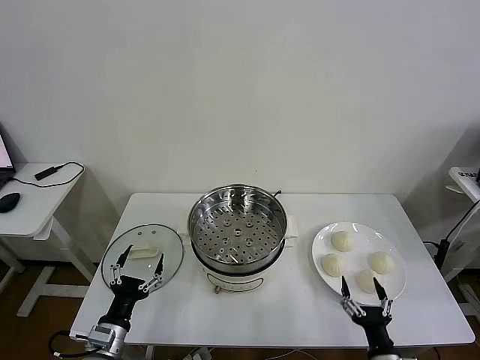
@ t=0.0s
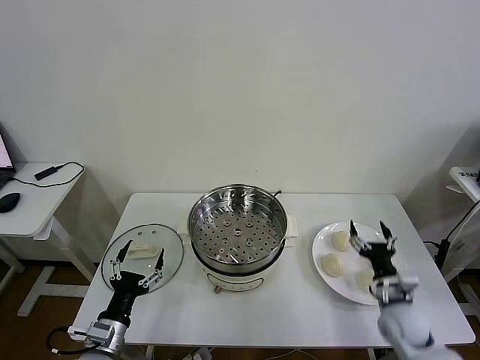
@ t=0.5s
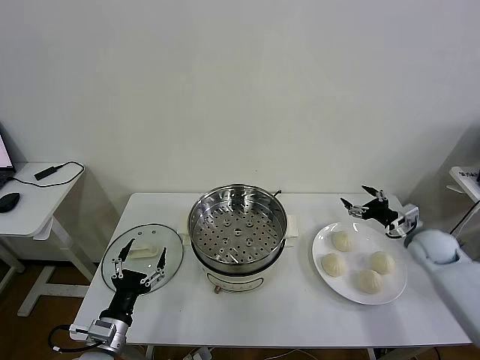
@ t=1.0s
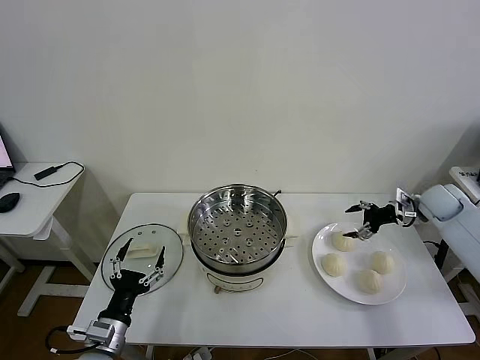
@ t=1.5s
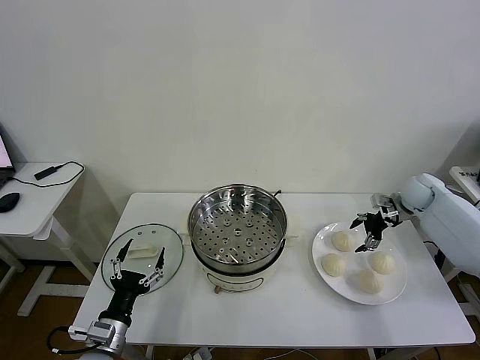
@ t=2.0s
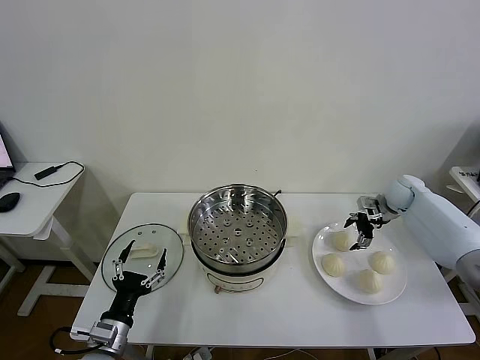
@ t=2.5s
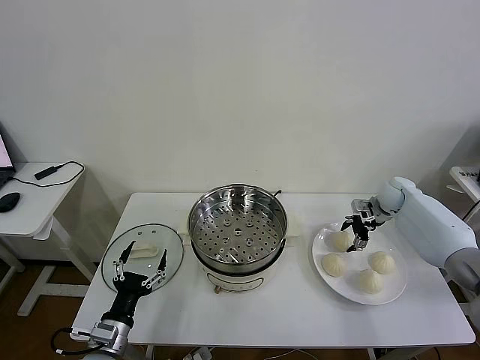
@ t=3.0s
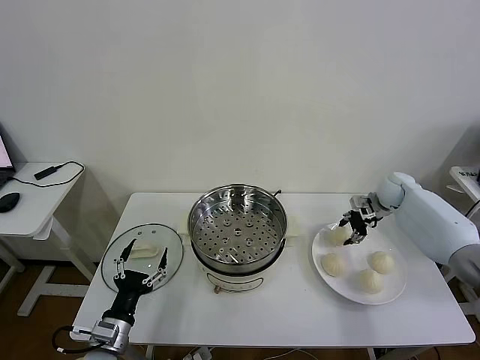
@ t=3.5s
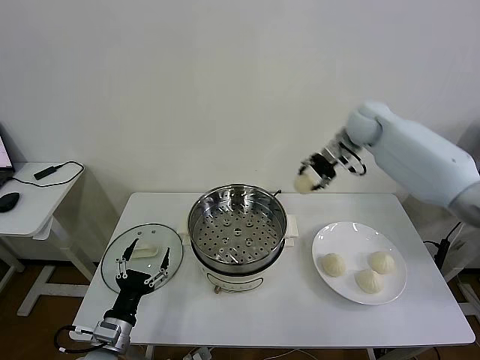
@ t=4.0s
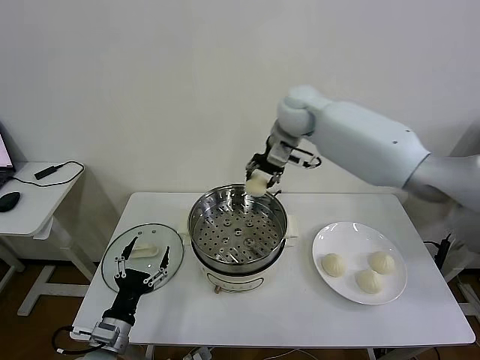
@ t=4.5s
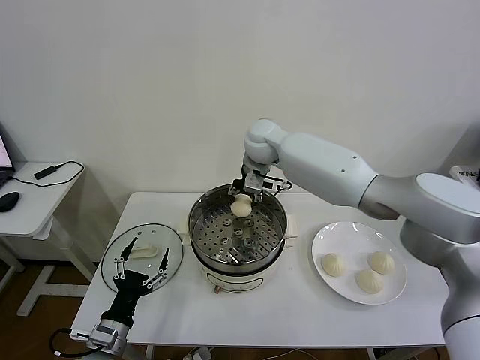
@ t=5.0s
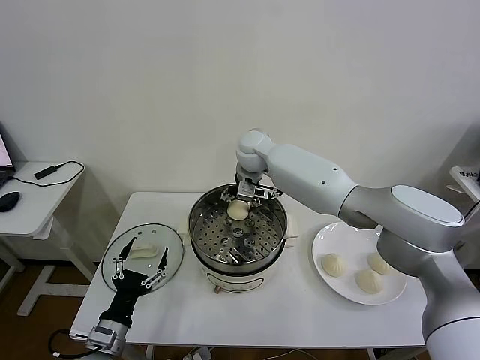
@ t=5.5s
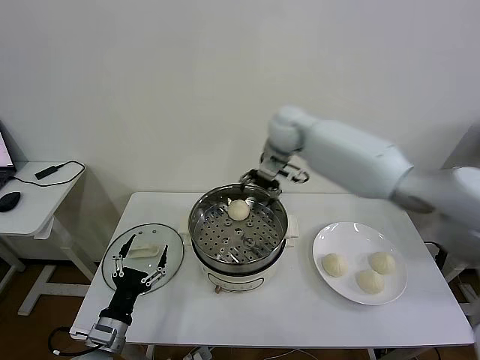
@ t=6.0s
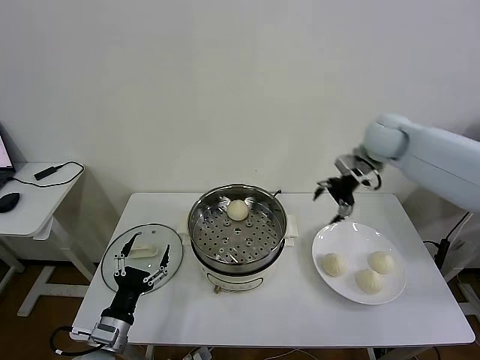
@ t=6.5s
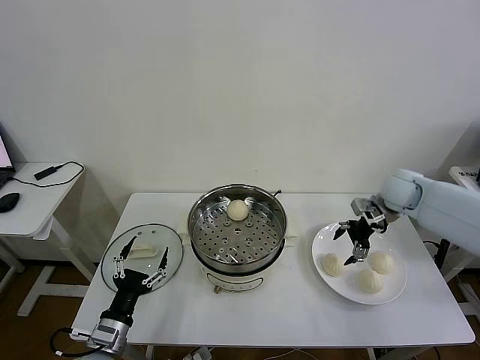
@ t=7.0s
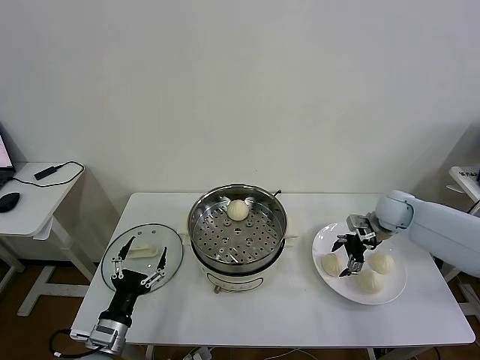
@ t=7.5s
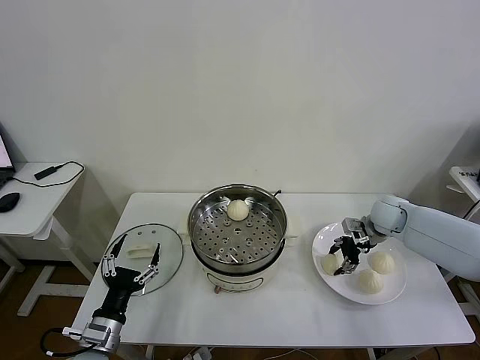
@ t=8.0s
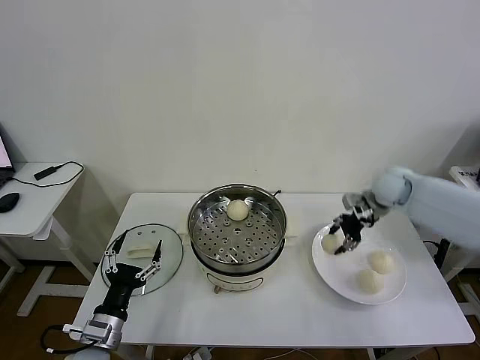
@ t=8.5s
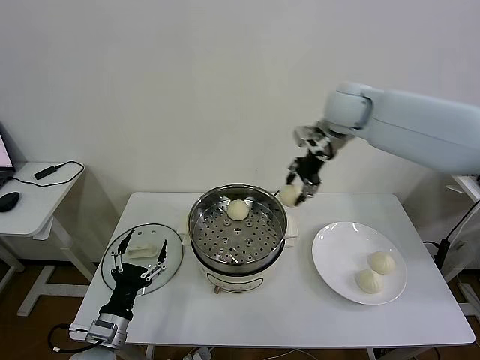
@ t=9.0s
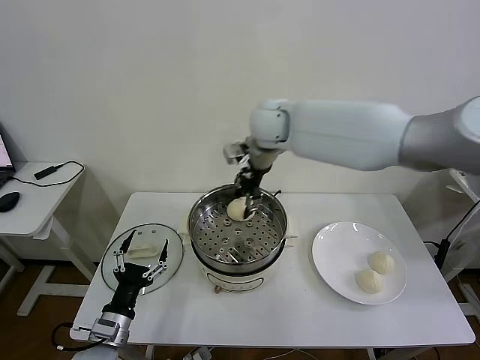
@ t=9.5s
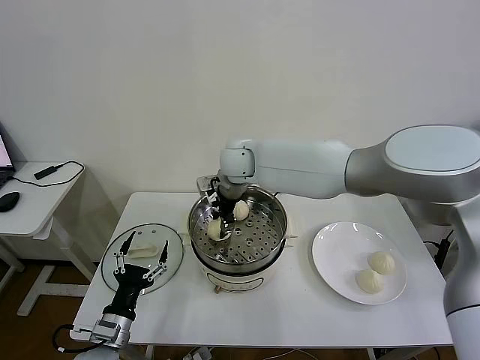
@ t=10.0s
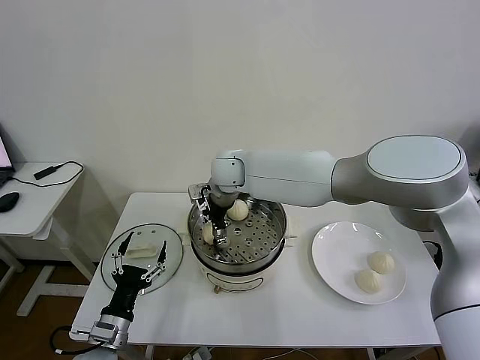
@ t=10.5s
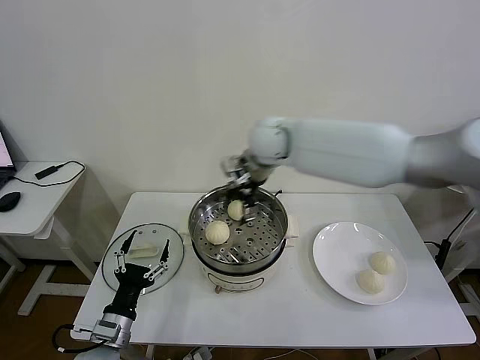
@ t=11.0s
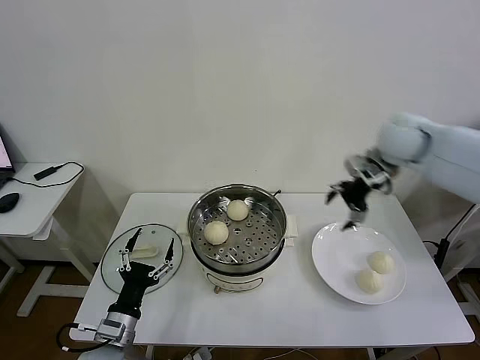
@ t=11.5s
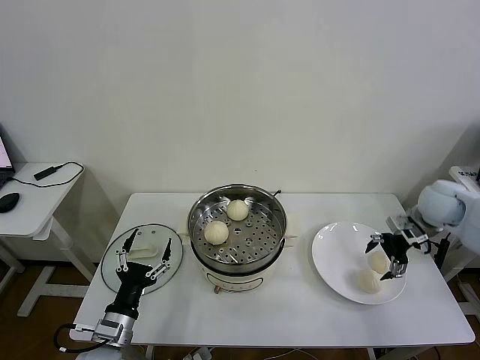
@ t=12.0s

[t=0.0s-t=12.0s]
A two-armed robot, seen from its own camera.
Task of the whole recording: take steamed baozi put them in steamer then cover it.
Step, t=0.0s to t=3.0s: Grasp the baozi in the plate with right gripper.
Step, t=3.5s to t=5.5s: Place the baozi on the steamer with right gripper.
Step, t=6.0s to t=8.0s: Grasp the baozi in the plate with right gripper.
Step, t=8.5s to t=10.5s: Place the baozi on the steamer with right gripper.
t=2.0s to t=4.0s: The right gripper shifts some 30 cm to the left and upward, and closes.
t=4.0s to t=6.0s: The right gripper moves to the left, about 10 cm, and opens its fingers.
t=6.0s to t=8.0s: The right gripper goes approximately 30 cm to the right and downward, and closes its fingers.
t=8.0s to t=10.0s: The right gripper moves to the left, about 40 cm.
t=10.0s to t=12.0s: The right gripper shifts roughly 50 cm to the right, and opens its fingers.

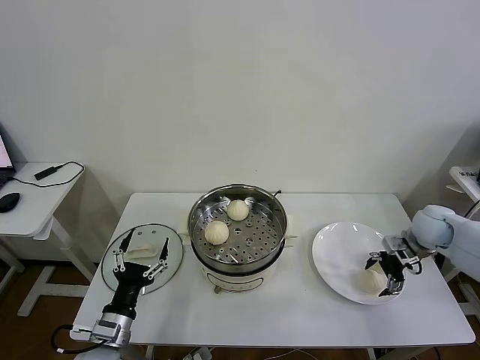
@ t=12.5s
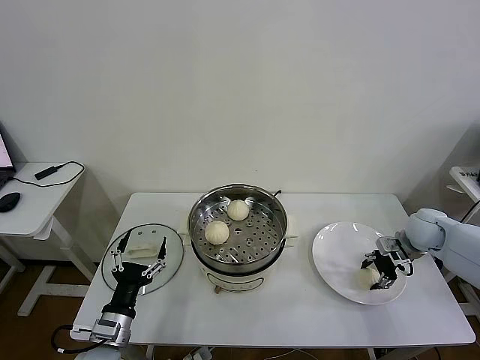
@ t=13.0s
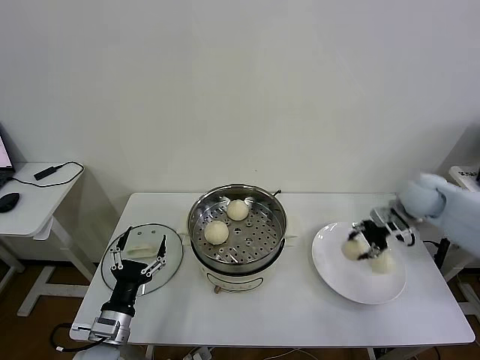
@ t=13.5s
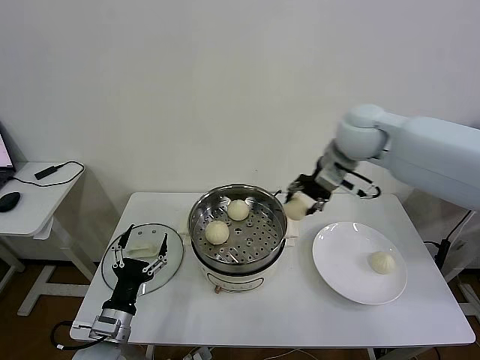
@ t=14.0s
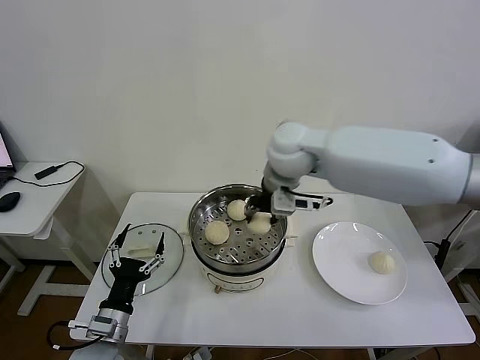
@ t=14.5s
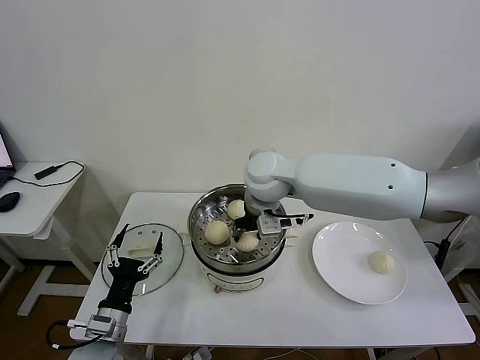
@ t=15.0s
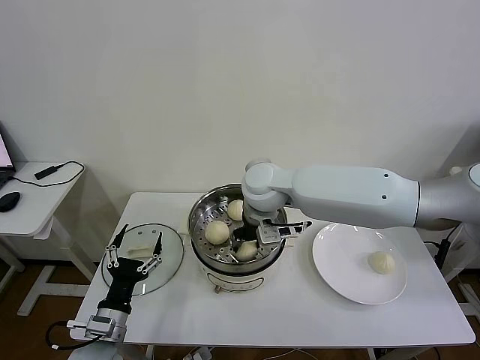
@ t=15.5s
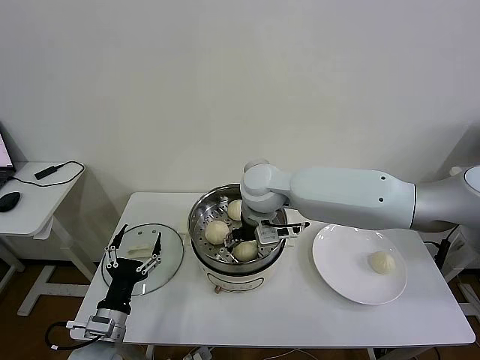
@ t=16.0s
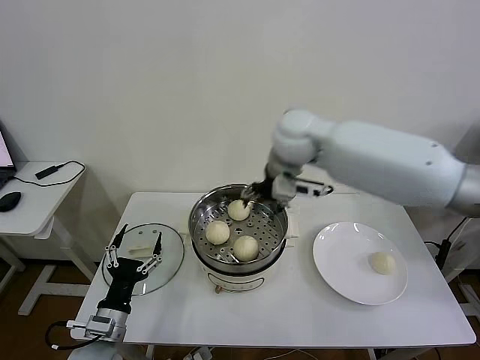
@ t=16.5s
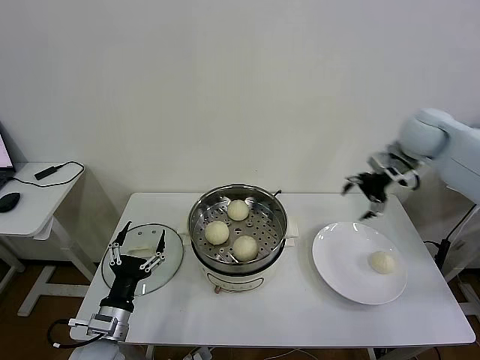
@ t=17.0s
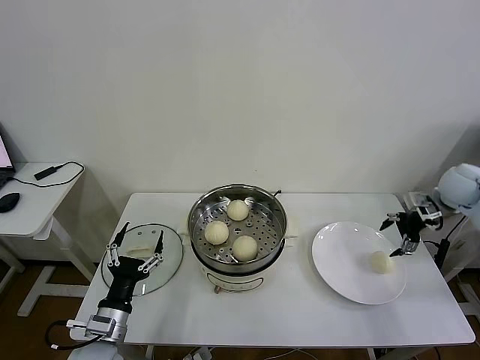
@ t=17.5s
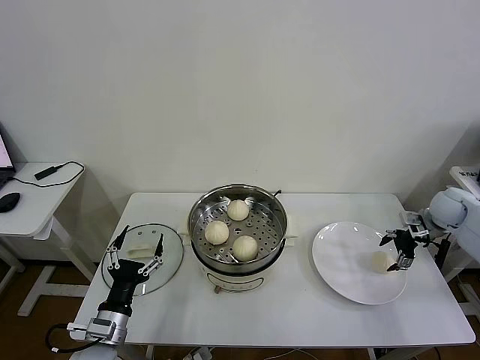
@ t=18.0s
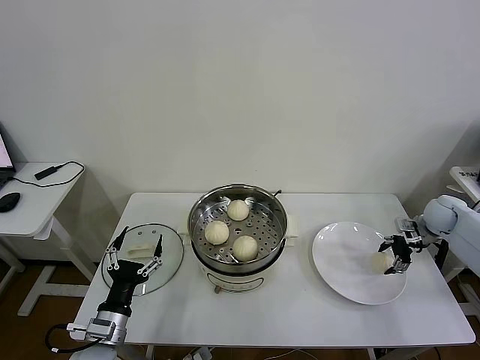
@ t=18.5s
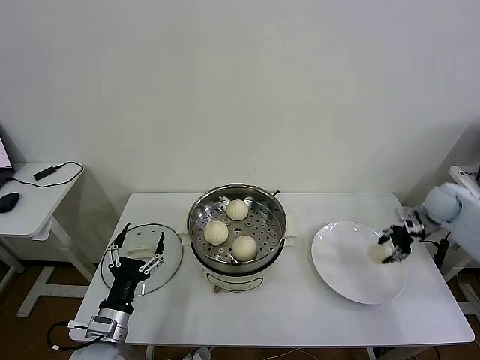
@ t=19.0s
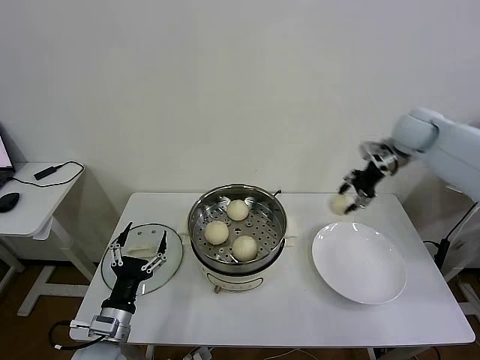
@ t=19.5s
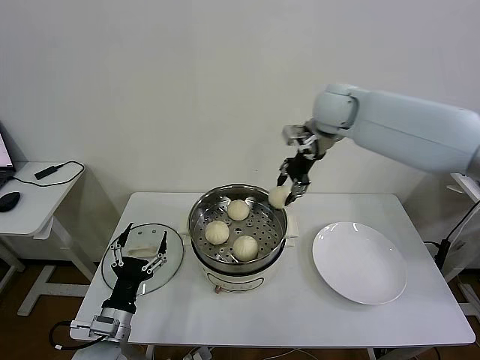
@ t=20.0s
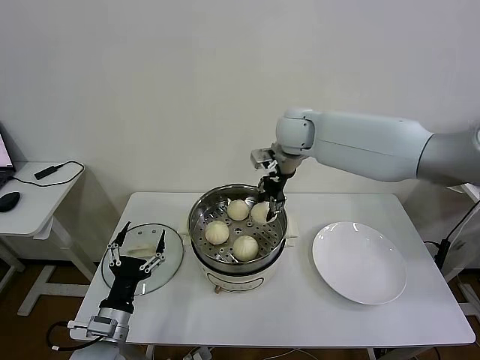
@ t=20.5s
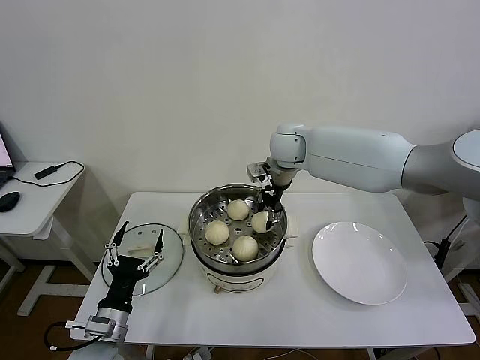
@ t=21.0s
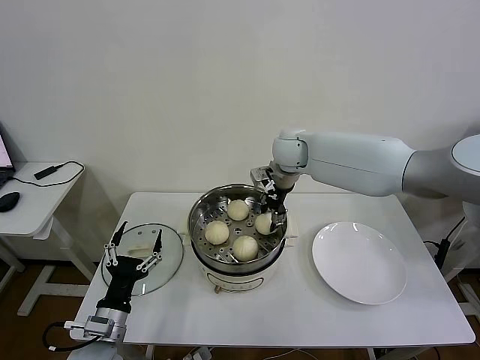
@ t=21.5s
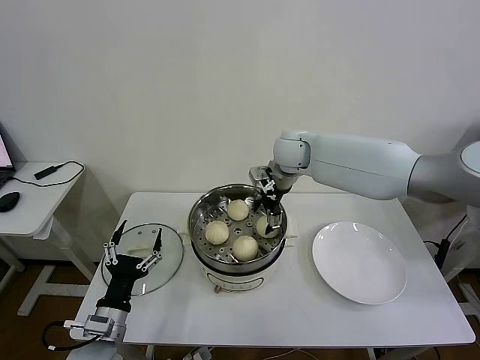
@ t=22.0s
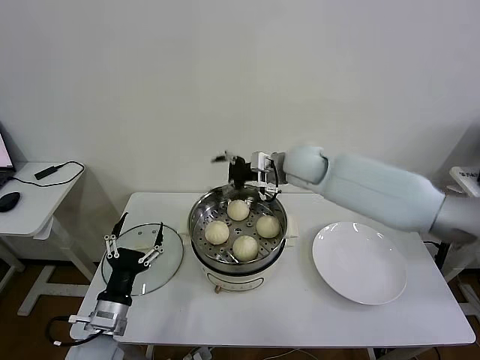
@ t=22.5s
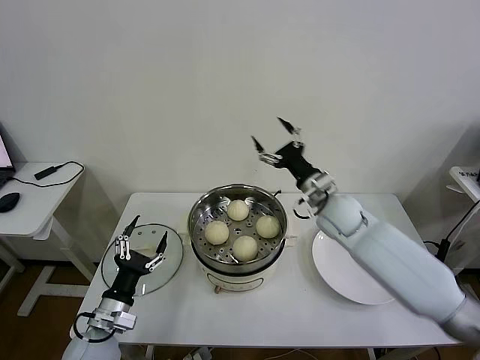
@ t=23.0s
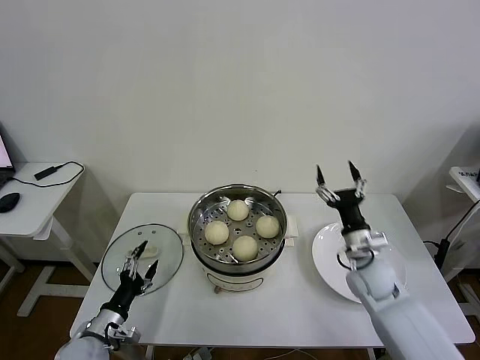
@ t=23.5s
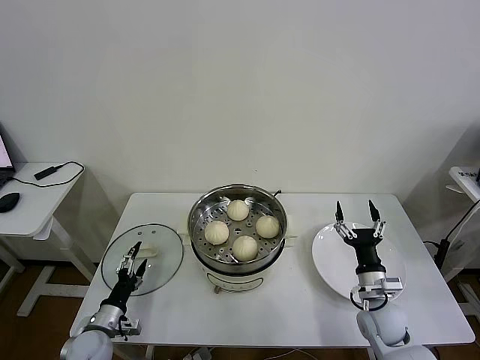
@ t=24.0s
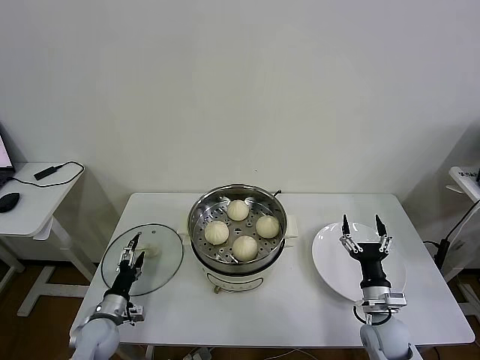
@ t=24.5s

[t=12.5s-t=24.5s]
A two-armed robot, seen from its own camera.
Task of the whole recording: take steamed baozi put them in steamer then cover it.
Step, t=13.5s to t=15.5s: Place the baozi on the steamer with right gripper.
Step, t=16.0s to t=18.5s: Grasp the baozi in the plate with right gripper.
Step, t=19.0s to t=21.5s: Place the baozi on the steamer with right gripper.
t=12.5s to t=14.5s: The right gripper moves to the left and upward, roughly 40 cm, and closes its fingers.
t=14.5s to t=16.5s: The right gripper travels downward and back again, roughly 5 cm each way, and opens.
t=16.5s to t=18.5s: The right gripper is displaced to the right and downward by roughly 50 cm.
t=18.5s to t=20.5s: The right gripper heads to the left and upward, covering approximately 40 cm, and closes its fingers.
t=20.5s to t=22.5s: The right gripper shifts approximately 5 cm downward, and opens up.
t=22.5s to t=24.5s: The left gripper heads downward, to the left and forward, covering some 15 cm, while the right gripper moves downward, backward and to the right, about 40 cm.

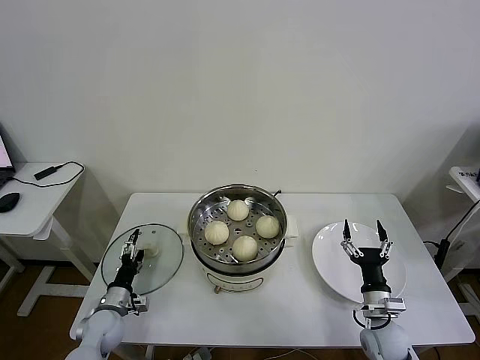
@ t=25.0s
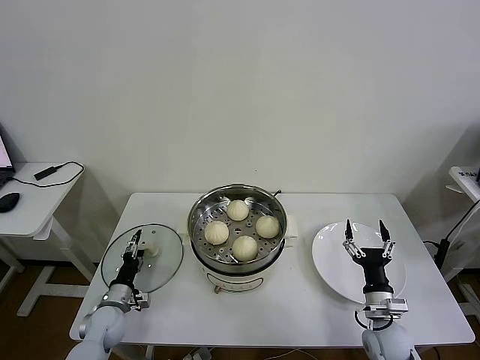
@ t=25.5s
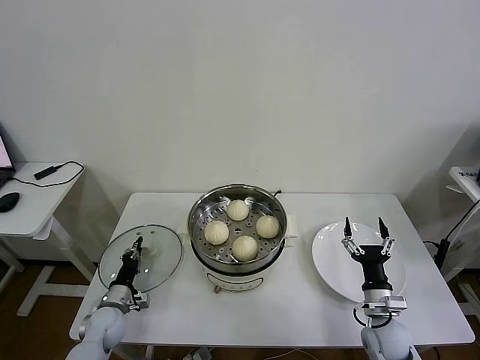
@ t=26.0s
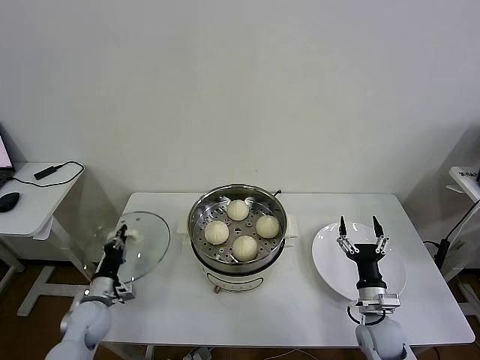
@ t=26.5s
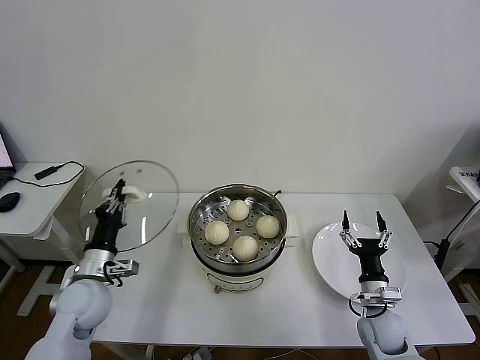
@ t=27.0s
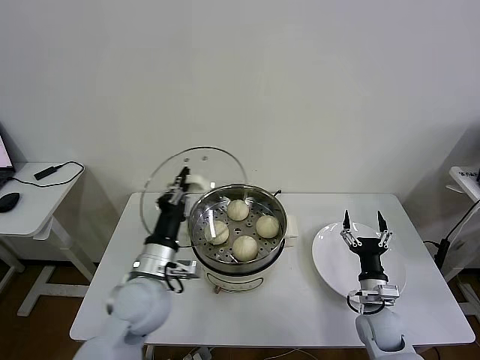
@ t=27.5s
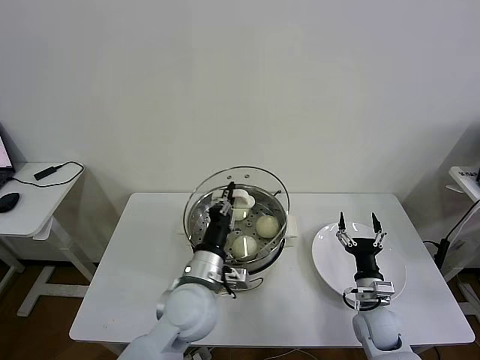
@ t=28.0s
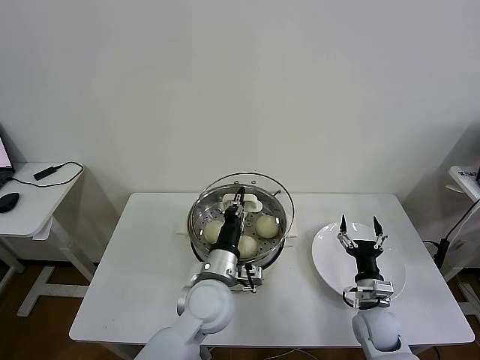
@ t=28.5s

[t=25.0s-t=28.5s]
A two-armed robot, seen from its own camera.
Task of the whole recording: take steamed baozi put them in steamer then cover it.
t=25.0s to t=27.0s: The left gripper is displaced upward by some 15 cm, and closes its fingers.
t=27.0s to t=28.5s: The left gripper heads to the right, covering some 25 cm.
